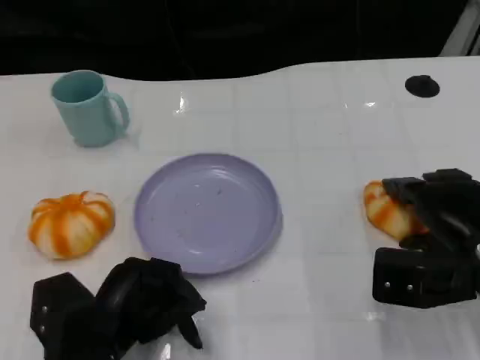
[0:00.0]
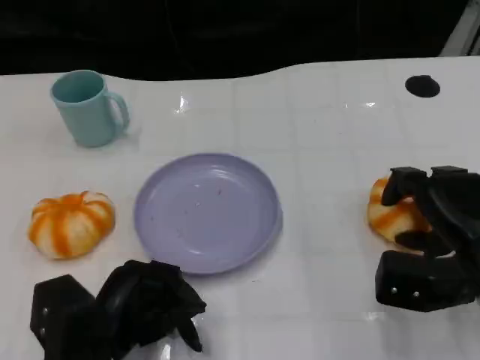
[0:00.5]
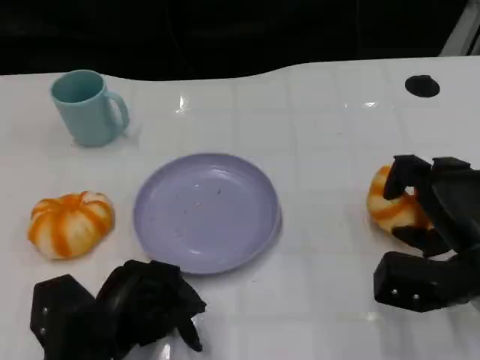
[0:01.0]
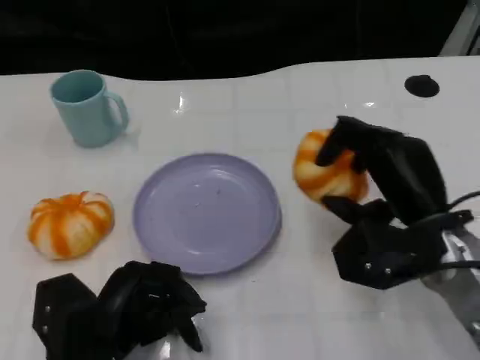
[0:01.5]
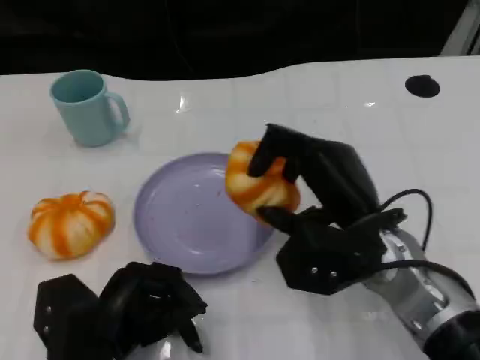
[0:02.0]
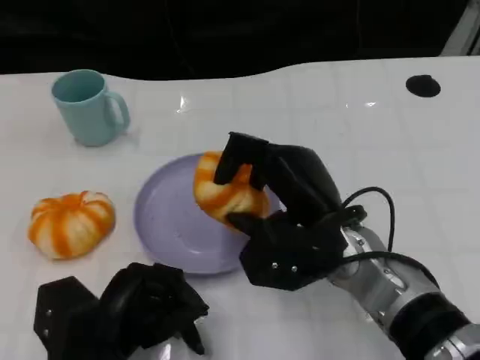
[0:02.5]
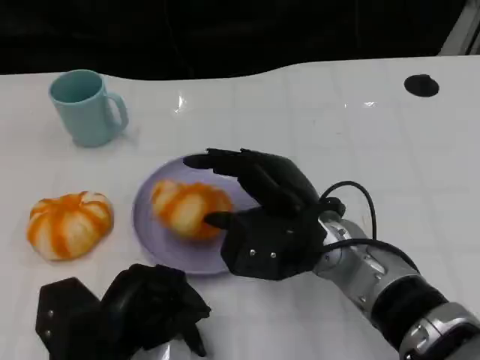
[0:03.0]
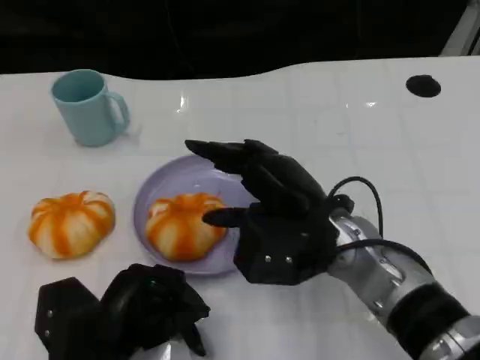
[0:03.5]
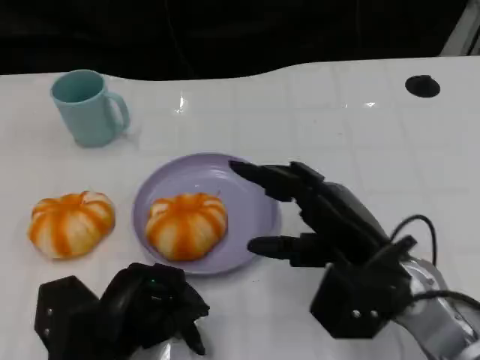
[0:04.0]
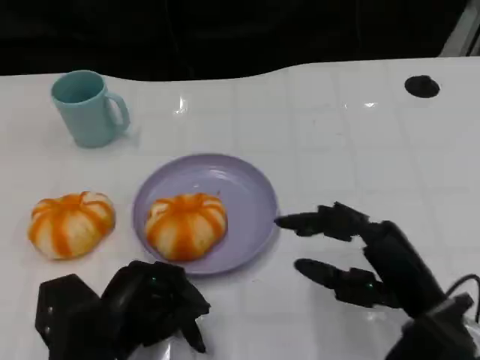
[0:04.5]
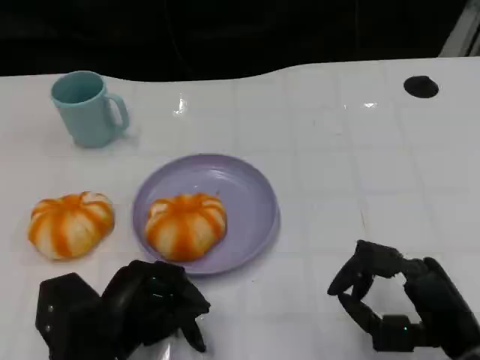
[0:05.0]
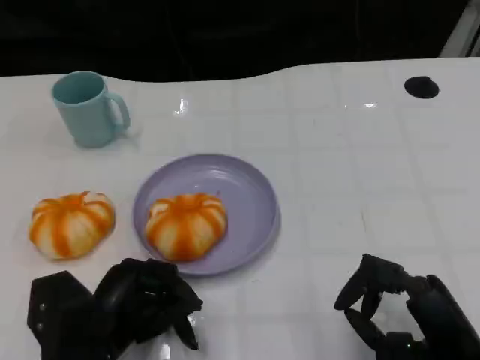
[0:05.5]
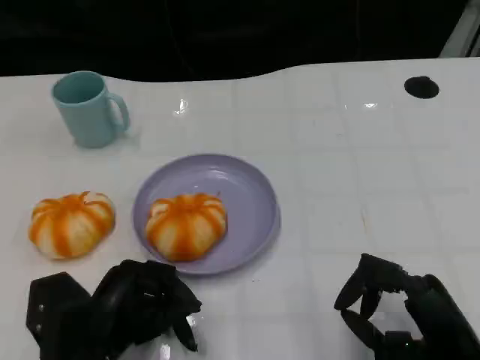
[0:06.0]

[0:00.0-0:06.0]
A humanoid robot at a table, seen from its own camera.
Task of the whole recording: Grasp the bread from the table and place it into the plate.
0:00.0 to 0:02.0: The right hand goes some 10 cm to the left.
0:02.0 to 0:04.0: There are only small adjustments of the hands.
0:04.0 to 0:06.0: The right hand goes roughly 10 cm backward, to the right and downward.

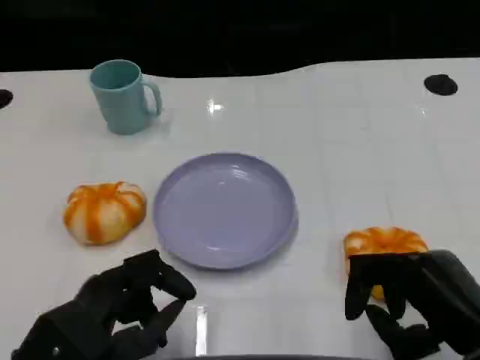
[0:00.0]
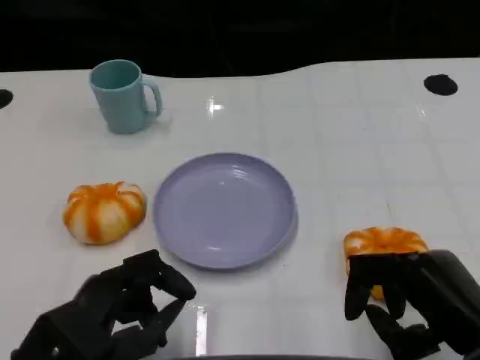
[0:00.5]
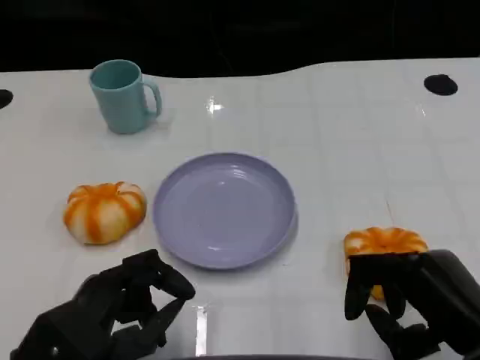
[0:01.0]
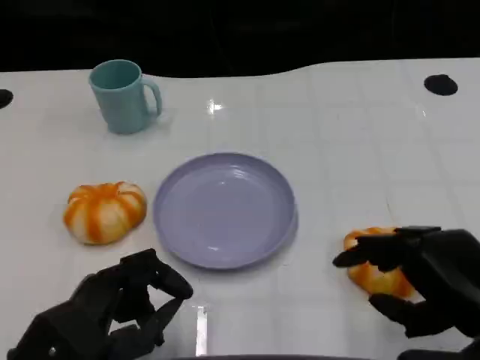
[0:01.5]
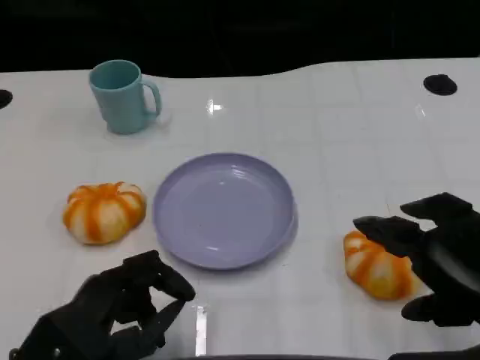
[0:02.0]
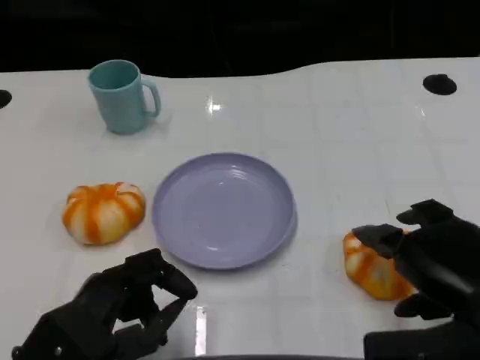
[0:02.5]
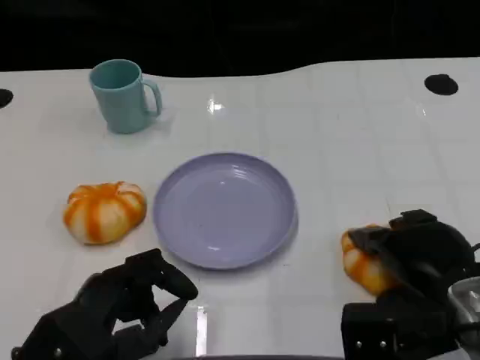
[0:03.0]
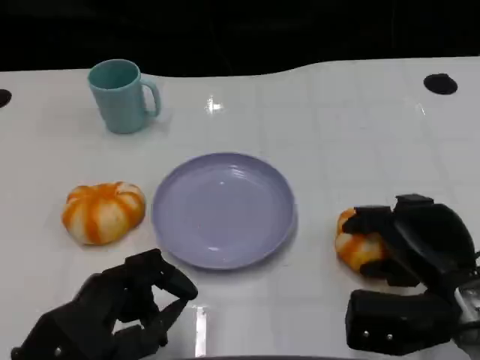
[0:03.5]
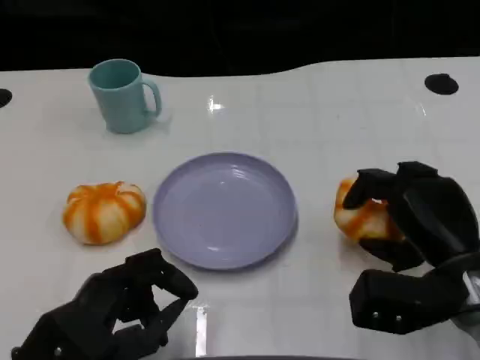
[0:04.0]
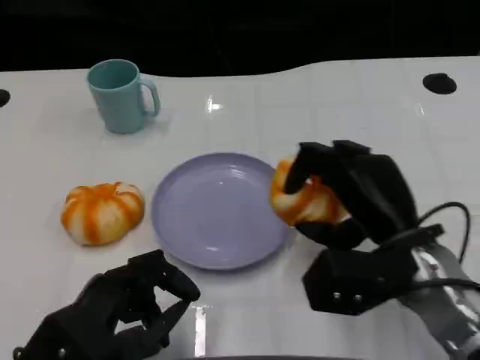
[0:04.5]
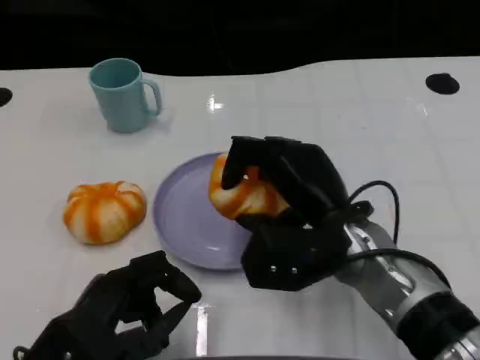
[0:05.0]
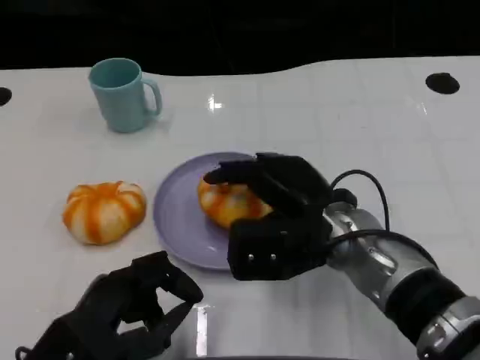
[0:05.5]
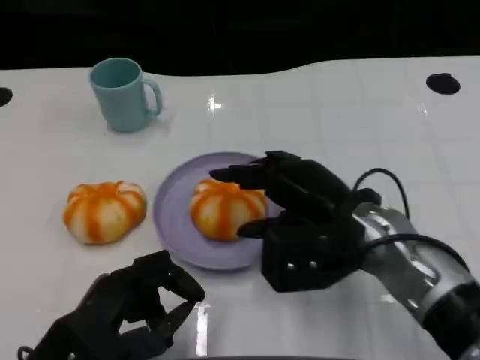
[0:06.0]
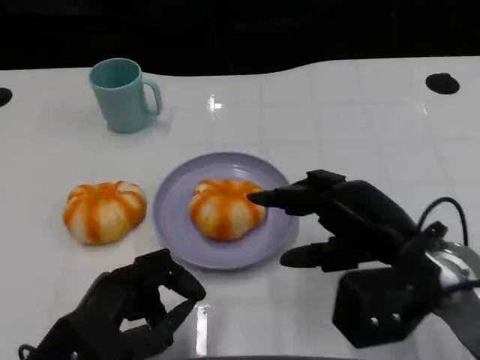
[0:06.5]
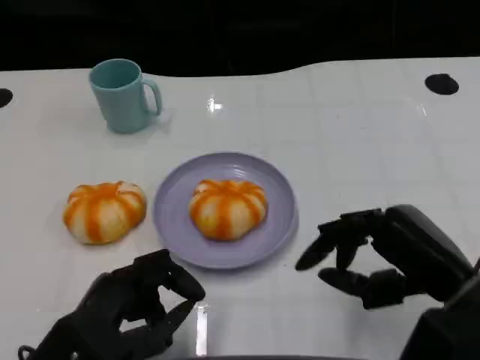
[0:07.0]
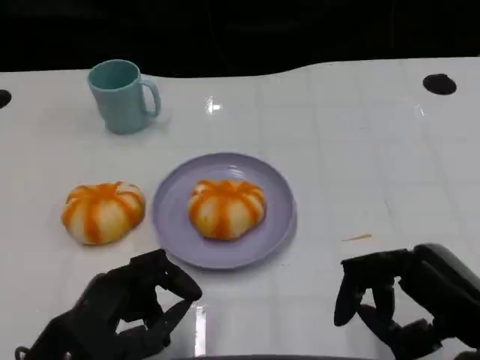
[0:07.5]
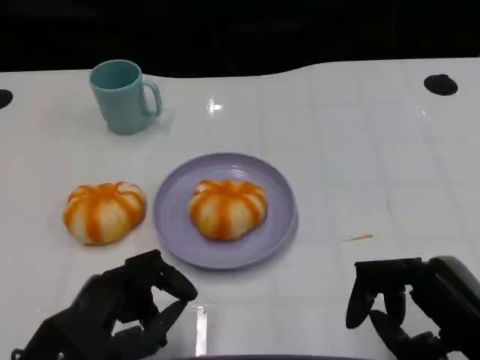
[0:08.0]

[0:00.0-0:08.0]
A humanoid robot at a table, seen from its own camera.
Task of the whole recording: Grasp the bread from the table and place it into the plate.
0:00.0 to 0:02.0: The right hand moves upward, some 5 cm.
0:02.0 to 0:04.0: The right hand shifts roughly 10 cm forward and downward.
0:04.0 to 0:06.0: The right hand heads to the left, covering some 10 cm.
0:06.0 to 0:08.0: The right hand is displaced backward and to the right by approximately 15 cm.

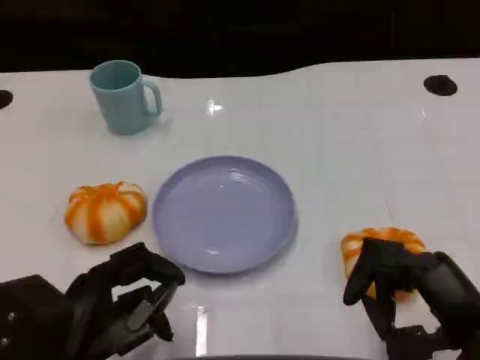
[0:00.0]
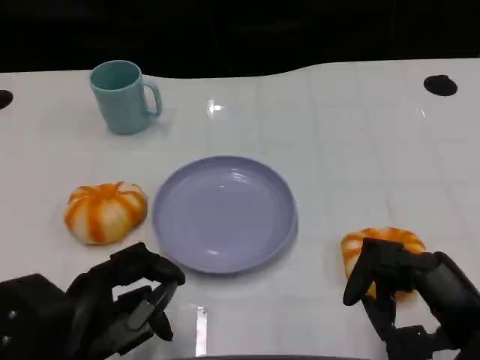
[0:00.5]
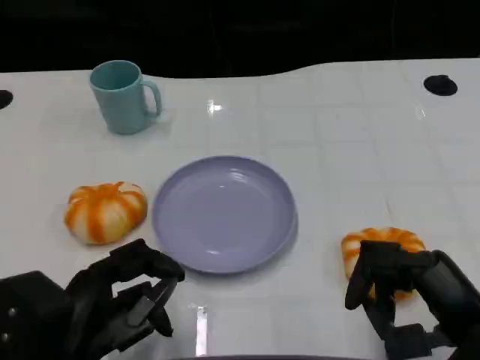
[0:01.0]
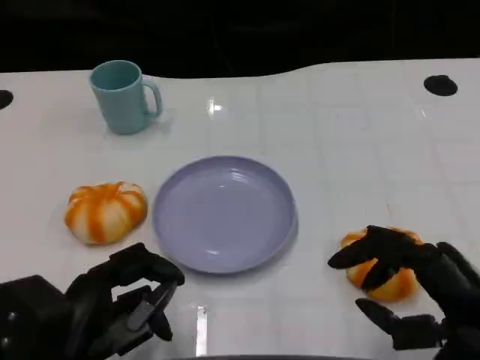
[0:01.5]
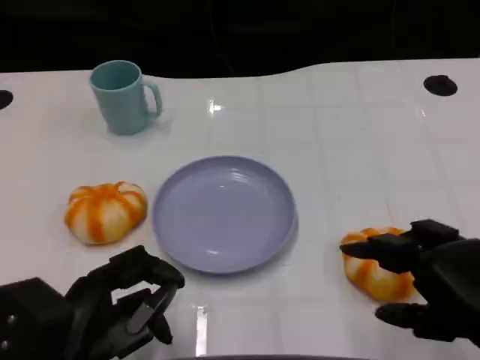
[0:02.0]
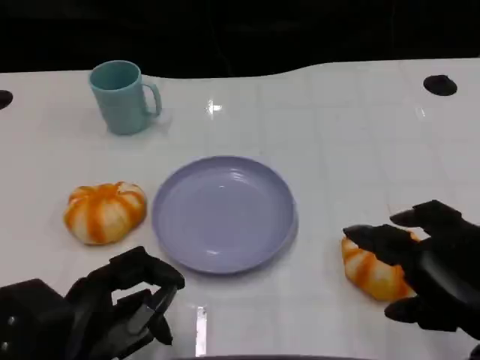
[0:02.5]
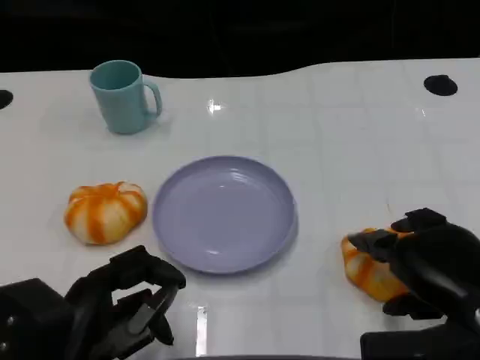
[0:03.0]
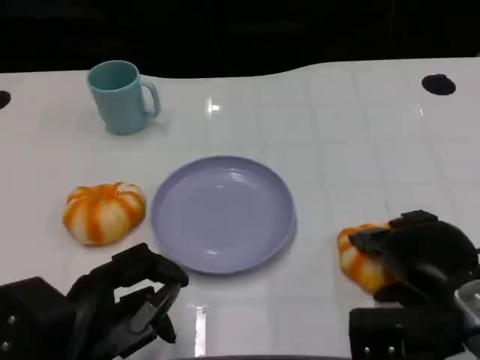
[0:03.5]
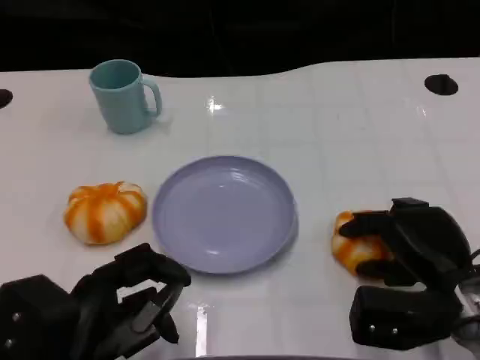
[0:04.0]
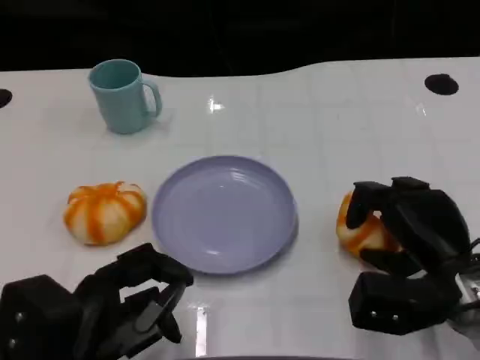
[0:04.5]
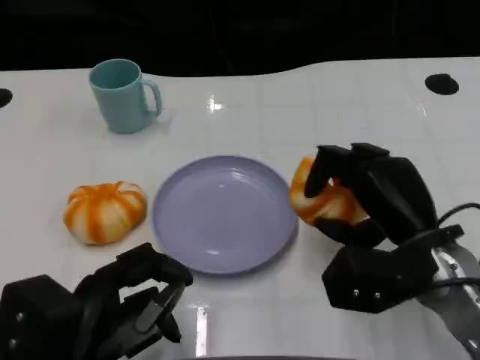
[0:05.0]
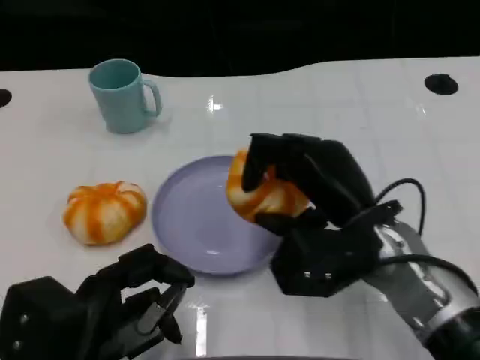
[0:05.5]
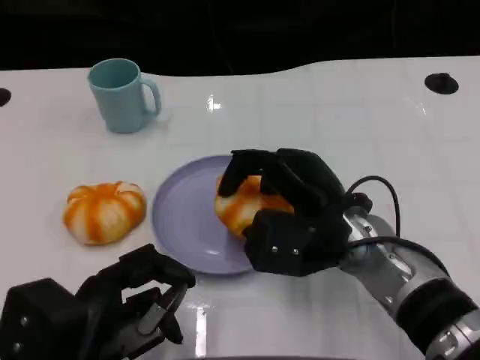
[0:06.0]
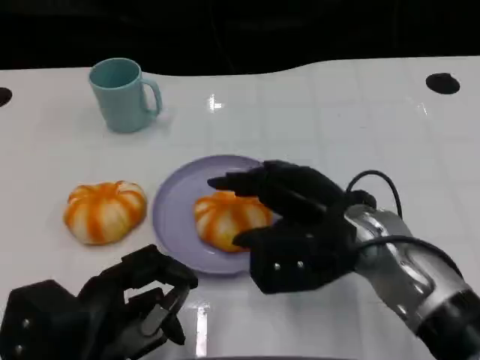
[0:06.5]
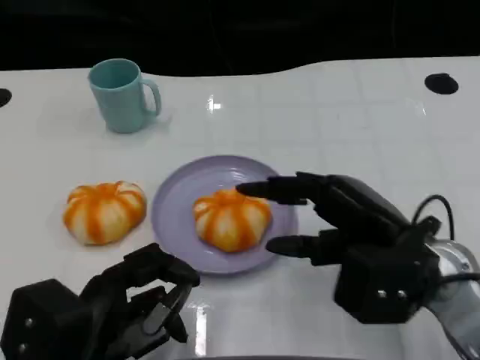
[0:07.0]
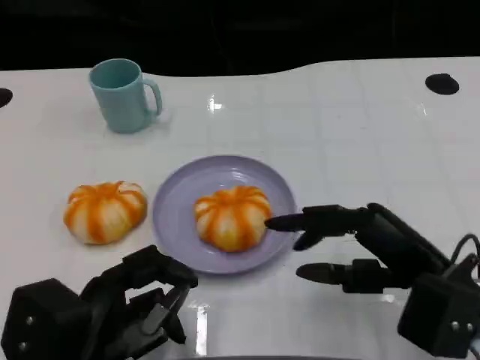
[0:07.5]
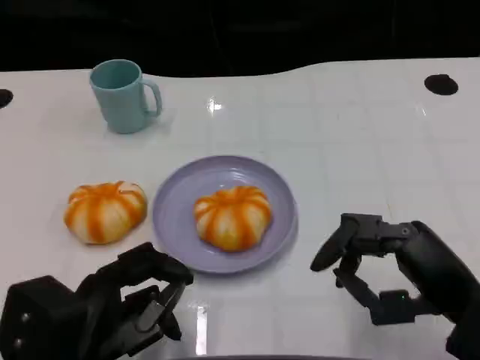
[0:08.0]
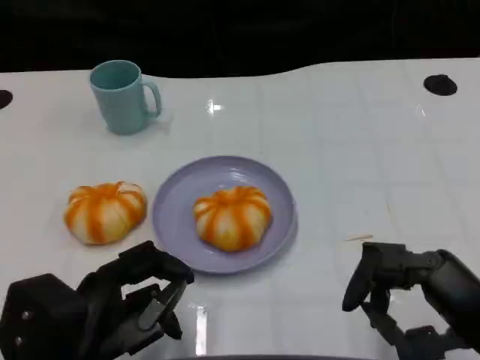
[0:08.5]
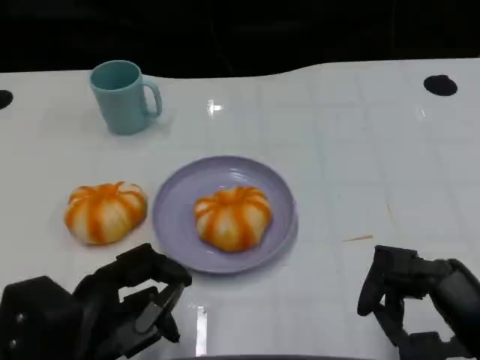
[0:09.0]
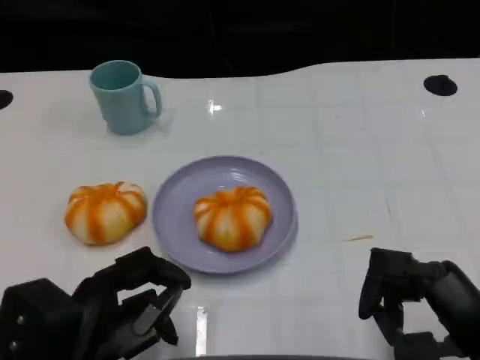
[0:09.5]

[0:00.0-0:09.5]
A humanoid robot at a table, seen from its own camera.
Task of the whole recording: Grasp the bread from the table and place it into the plate.
0:02.0 to 0:04.0: The right hand heads forward and downward, covering about 10 cm.
0:04.0 to 0:05.5: The right hand travels to the left and upward by approximately 10 cm.
0:05.5 to 0:07.5: The right hand travels to the right and backward by approximately 10 cm.
0:07.5 to 0:09.5: The right hand heads backward, covering approximately 5 cm.

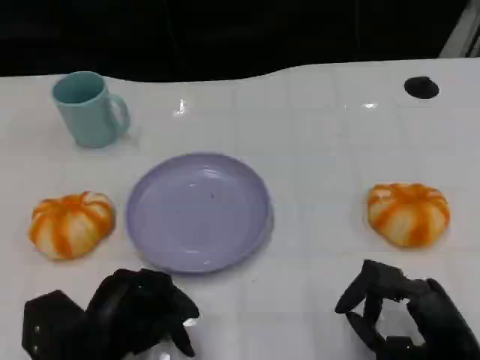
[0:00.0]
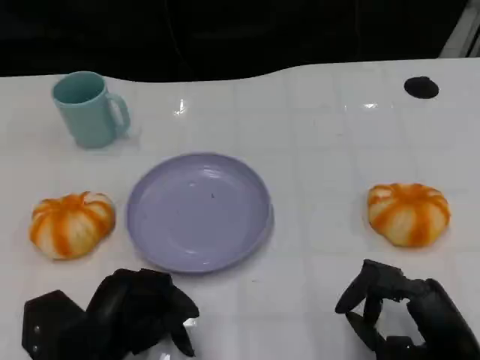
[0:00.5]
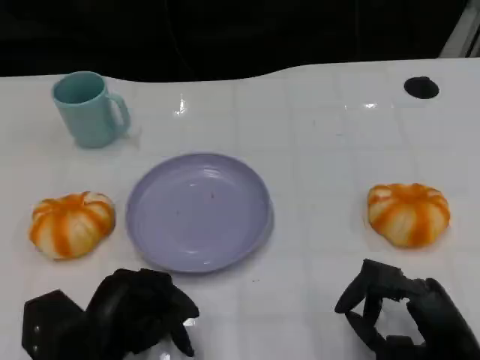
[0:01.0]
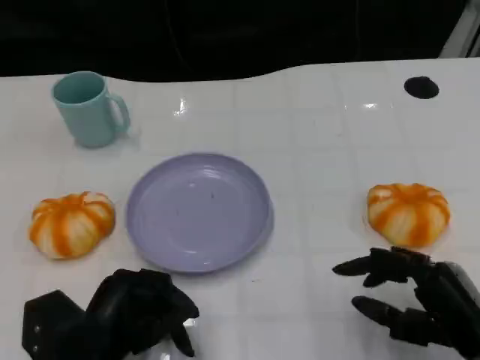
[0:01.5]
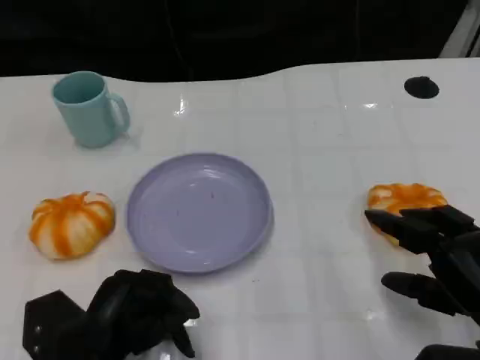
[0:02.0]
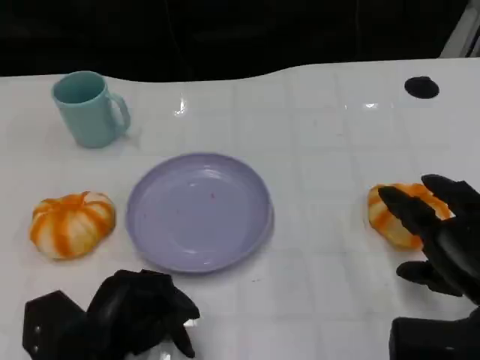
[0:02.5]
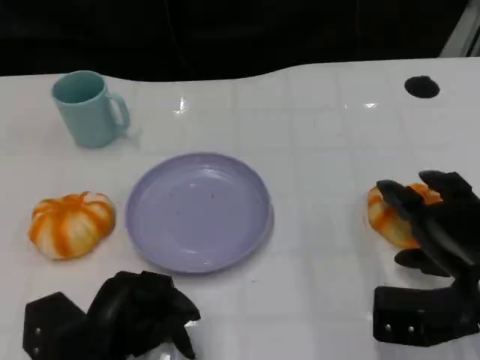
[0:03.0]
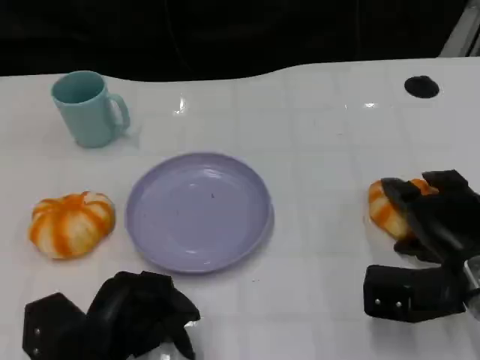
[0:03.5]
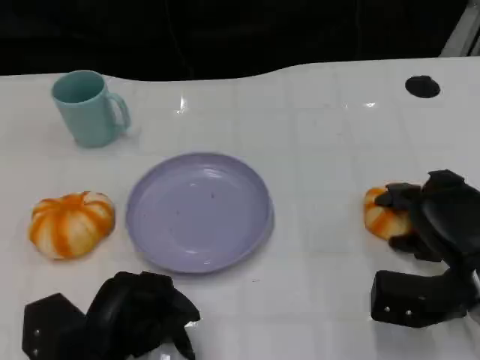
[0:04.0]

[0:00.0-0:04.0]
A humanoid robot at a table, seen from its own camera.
Task of the whole recording: Grasp the bread from the table and place it into the plate.
0:00.0 to 0:02.0: The right hand shifts by some 5 cm.
0:02.0 to 0:04.0: The right hand travels forward by about 5 cm.
